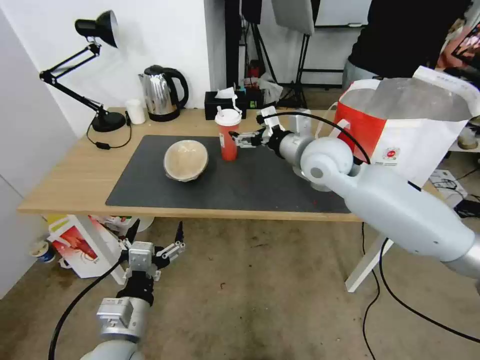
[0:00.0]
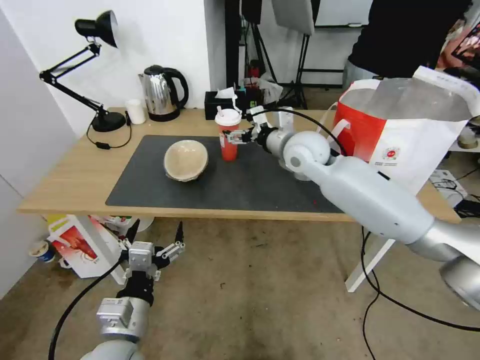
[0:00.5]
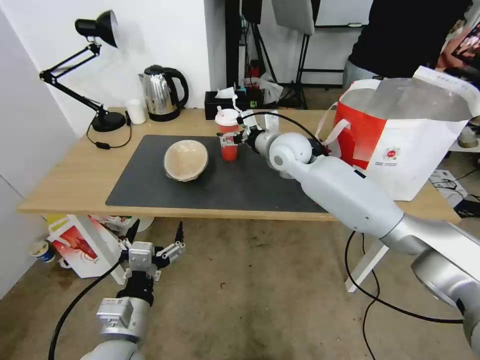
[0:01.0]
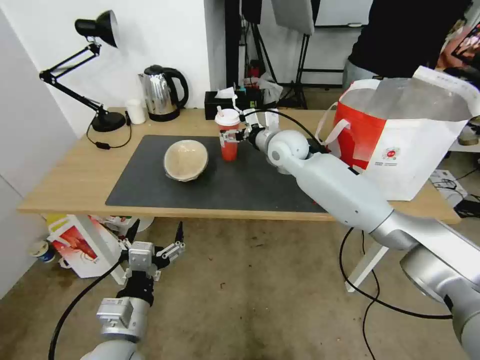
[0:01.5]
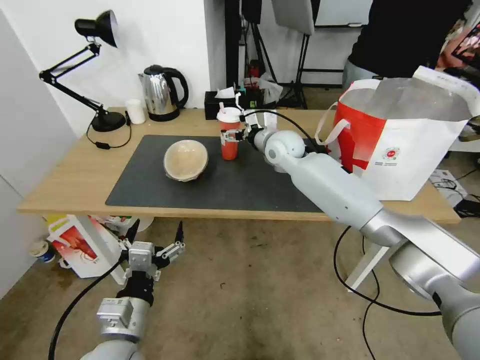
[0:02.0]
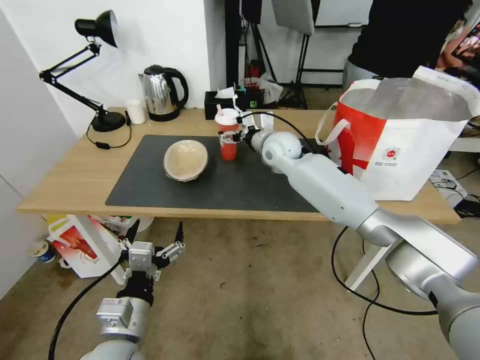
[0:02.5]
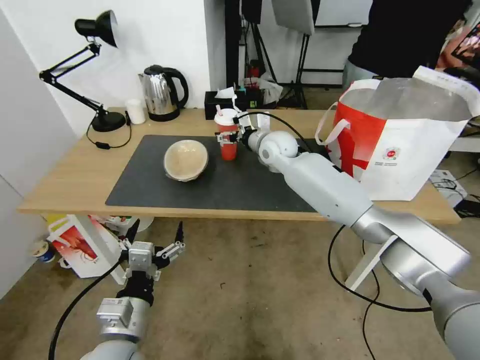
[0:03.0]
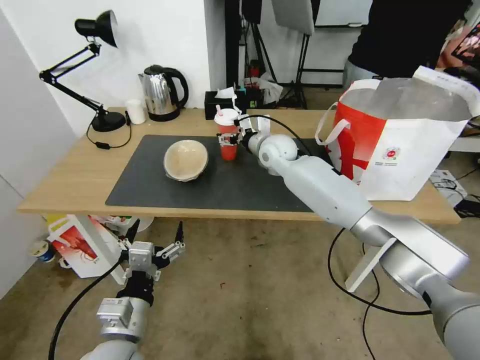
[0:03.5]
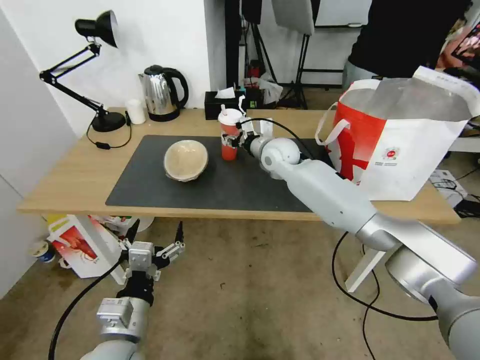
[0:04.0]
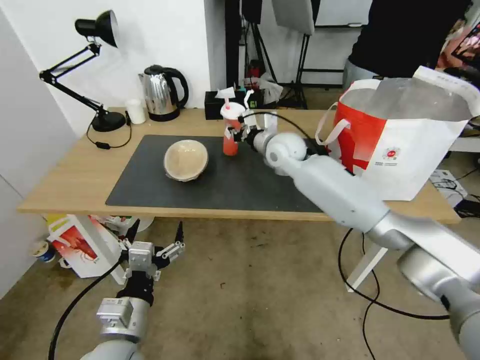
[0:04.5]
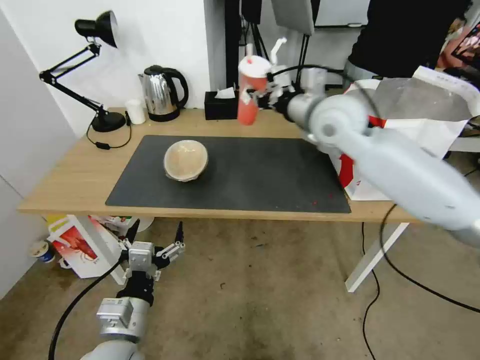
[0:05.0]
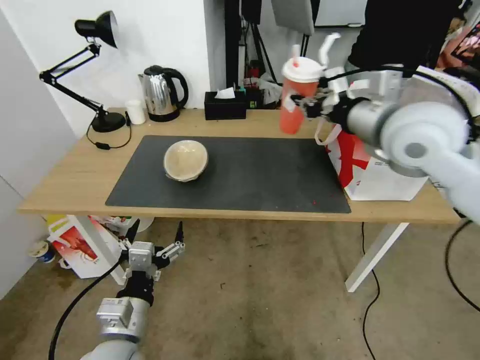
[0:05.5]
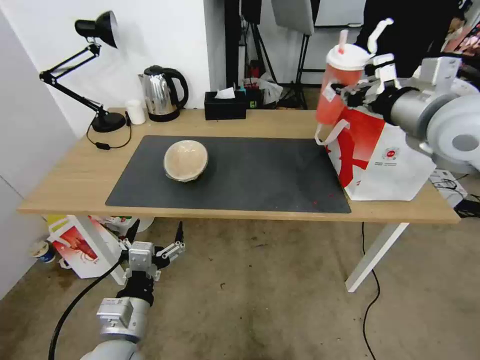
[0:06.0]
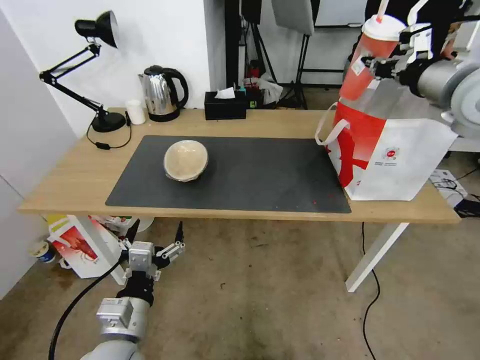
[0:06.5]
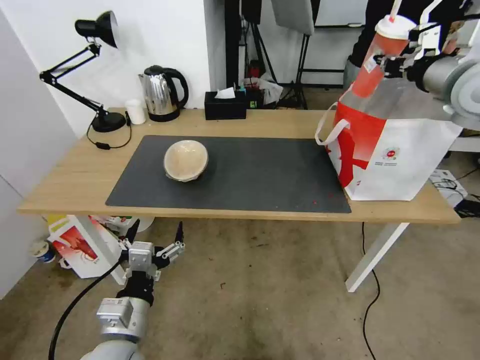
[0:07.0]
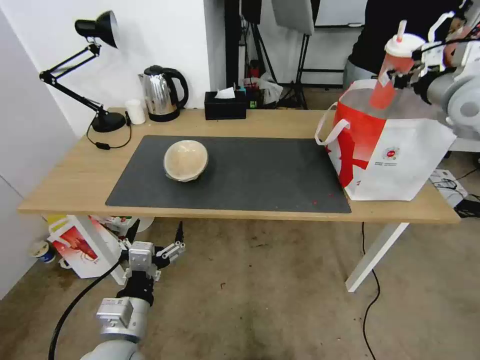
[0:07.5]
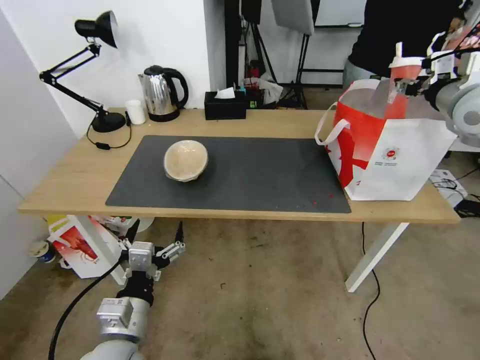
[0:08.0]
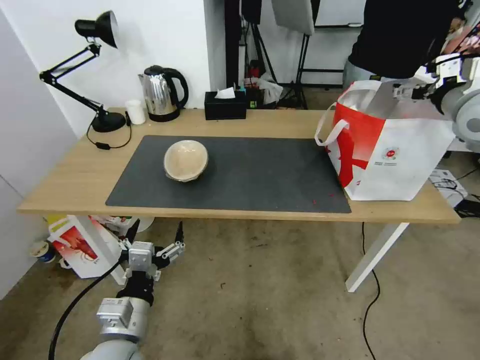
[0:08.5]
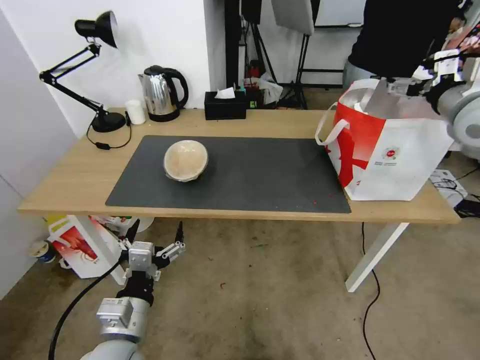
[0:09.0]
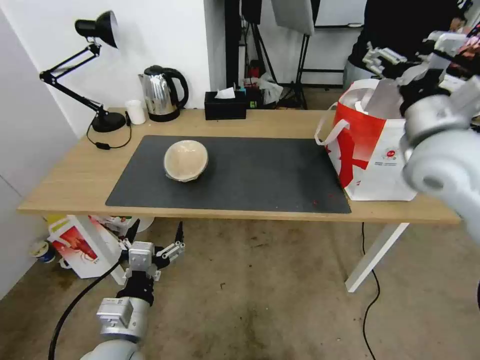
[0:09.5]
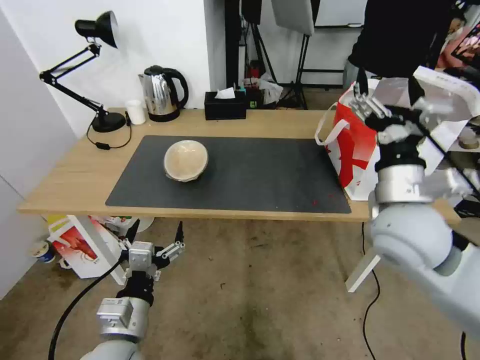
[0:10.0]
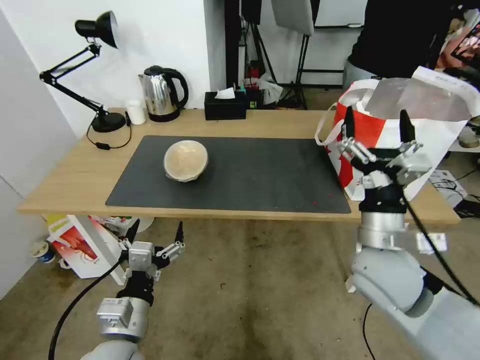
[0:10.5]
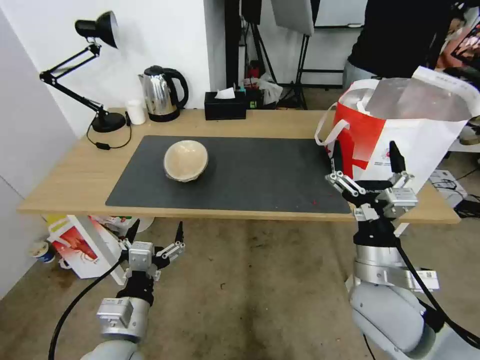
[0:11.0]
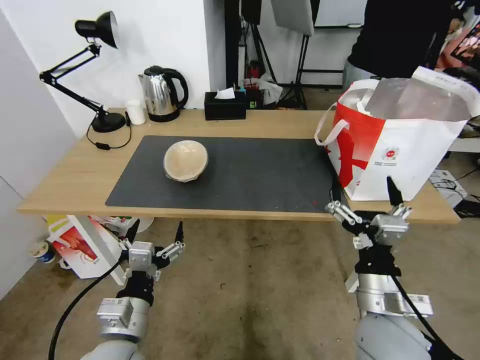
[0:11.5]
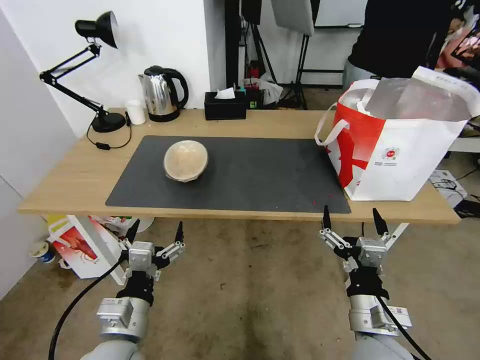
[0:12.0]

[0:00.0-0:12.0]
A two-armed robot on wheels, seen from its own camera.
Task of the whole recording: Pick up the trash from the table and place it into the takeout bag.
0:00.0 to 0:02.0: The right gripper is displaced forward, downward and to the left by approximately 15 cm.
0:02.0 to 0:04.0: The right gripper closes up.
0:04.0 to 0:06.0: The right gripper travels upward, to the right and backward by approximately 35 cm.
0:06.0 to 0:08.0: The right gripper is displaced to the right and forward by approximately 15 cm, and opens up.
0:08.0 to 0:10.0: The right gripper is displaced to the left, backward and downward by some 25 cm, and opens its fingers.
0:10.0 to 0:12.0: The right gripper goes some 20 cm downward and backward.

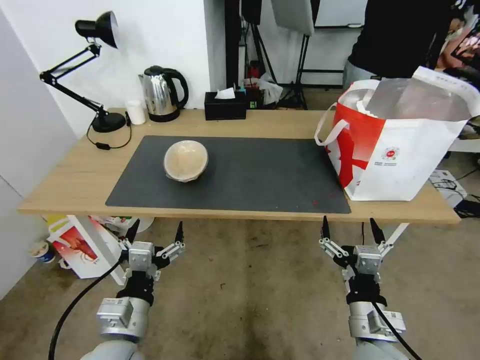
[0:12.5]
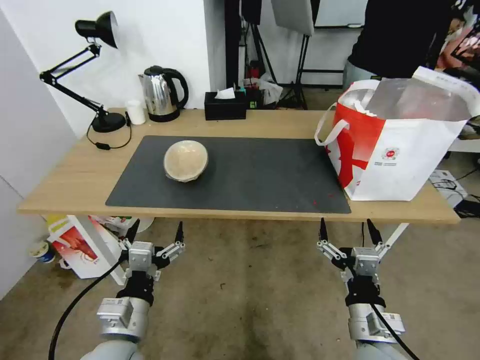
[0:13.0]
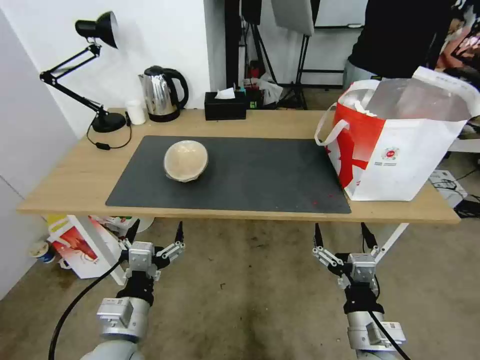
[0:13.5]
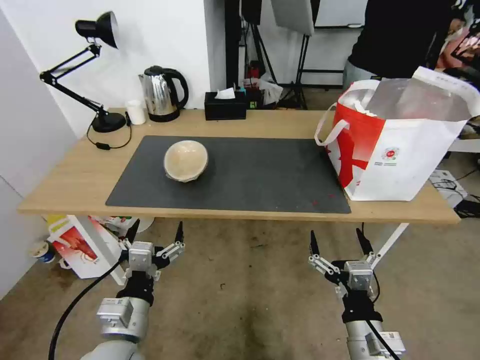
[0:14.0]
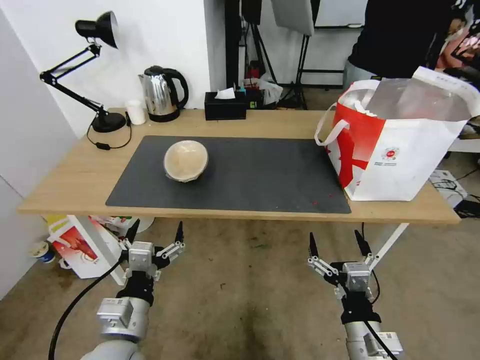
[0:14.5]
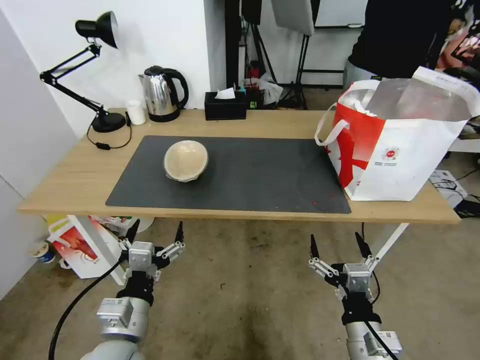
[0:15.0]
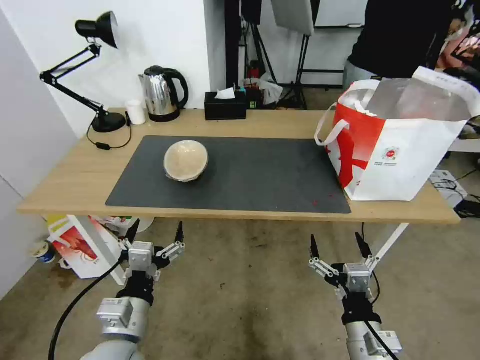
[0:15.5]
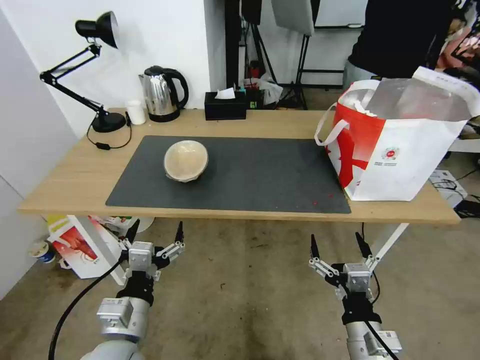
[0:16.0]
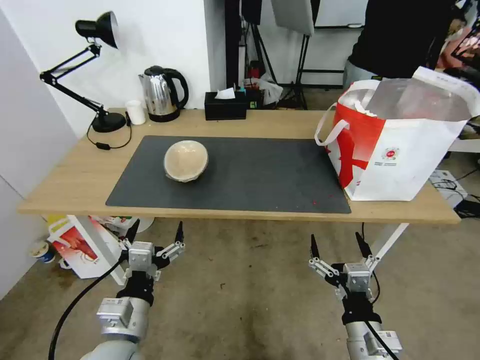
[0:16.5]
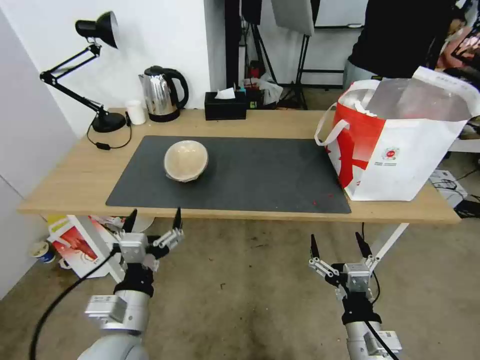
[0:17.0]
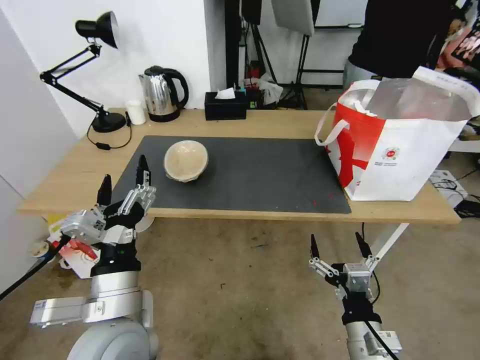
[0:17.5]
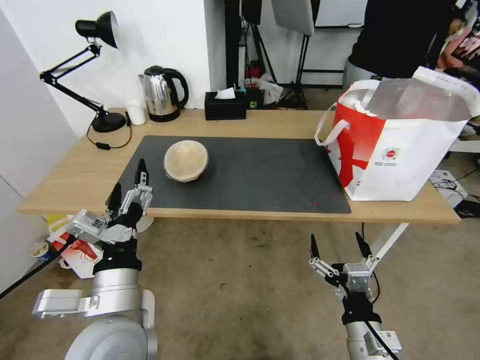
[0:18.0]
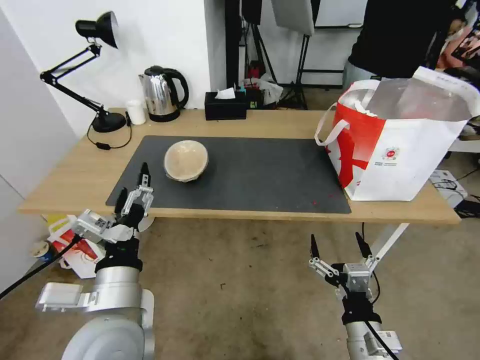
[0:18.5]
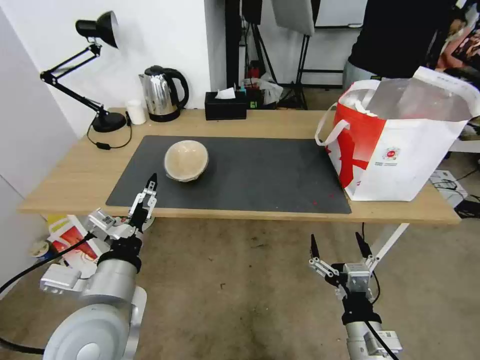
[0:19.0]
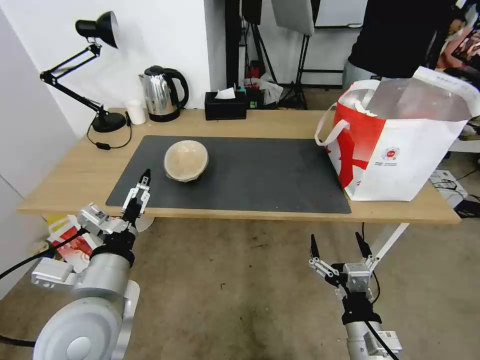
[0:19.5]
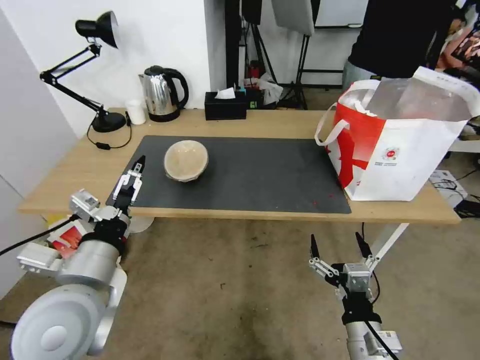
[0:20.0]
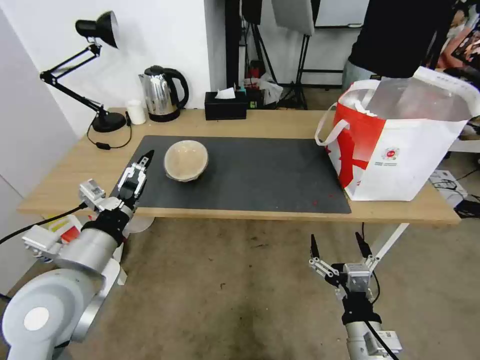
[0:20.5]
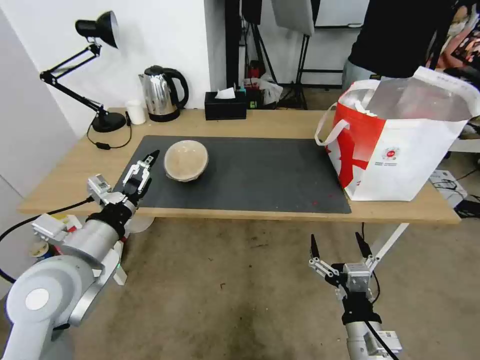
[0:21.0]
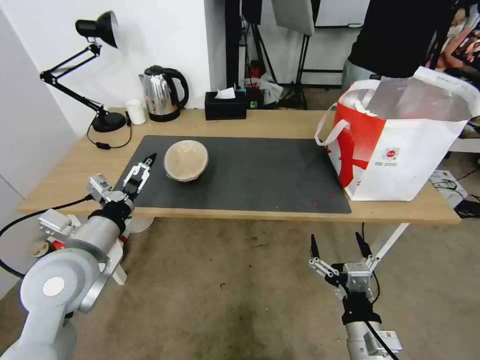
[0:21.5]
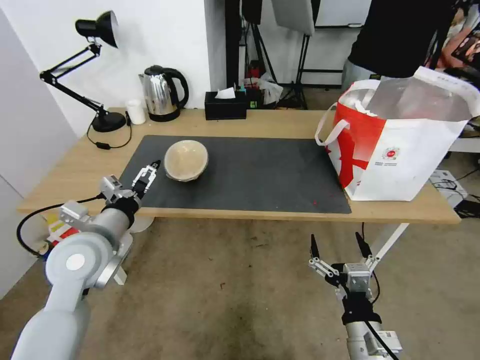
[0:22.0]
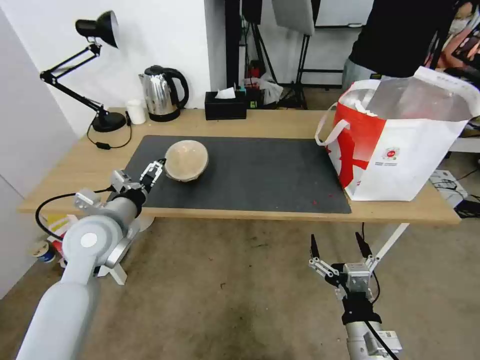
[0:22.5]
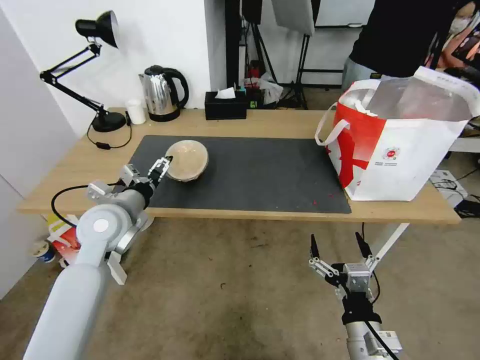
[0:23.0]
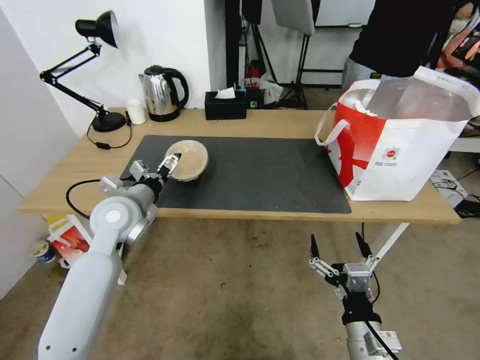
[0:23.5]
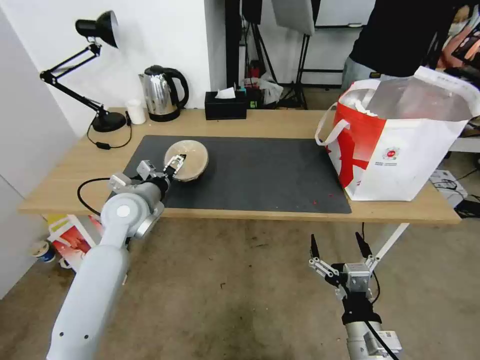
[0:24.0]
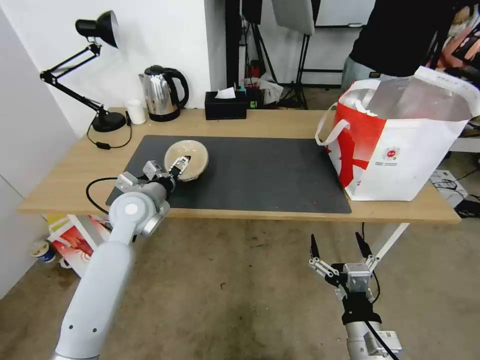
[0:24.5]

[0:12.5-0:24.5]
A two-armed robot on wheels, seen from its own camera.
Task of the whole recording: Pick up the trash from the table and place it into the takeout bag.
0:12.5 to 0:14.5: The grippers stay close to where they were, moving slightly.
0:14.5 to 0:16.5: Both grippers stay put.
0:16.5 to 0:18.5: The left gripper is displaced upward by some 10 cm.
0:18.5 to 0:20.5: The left gripper is displaced to the left by about 10 cm.
0:20.5 to 0:22.5: The left gripper heads forward, covering approximately 10 cm.
0:22.5 to 0:24.5: The left gripper moves forward, some 10 cm.

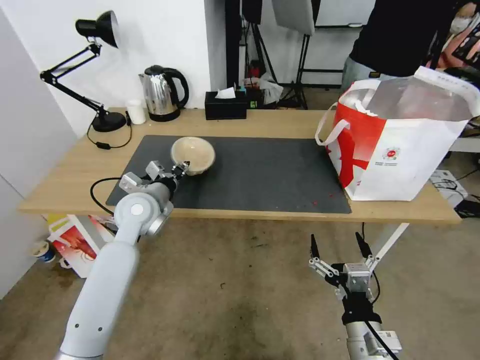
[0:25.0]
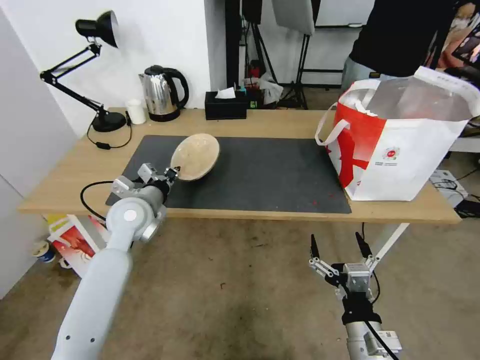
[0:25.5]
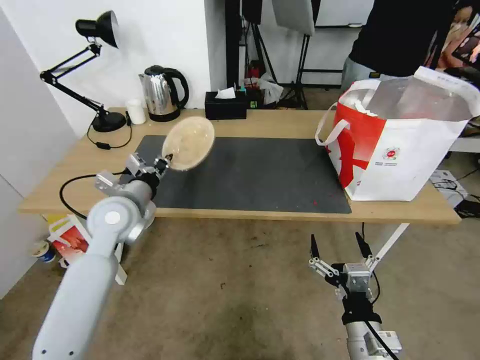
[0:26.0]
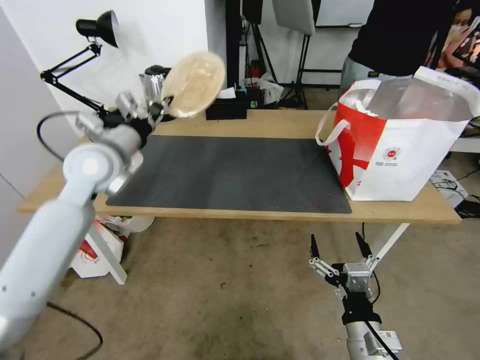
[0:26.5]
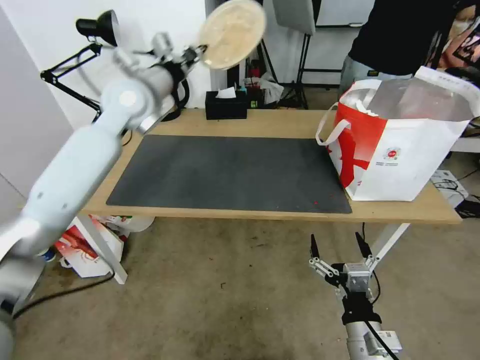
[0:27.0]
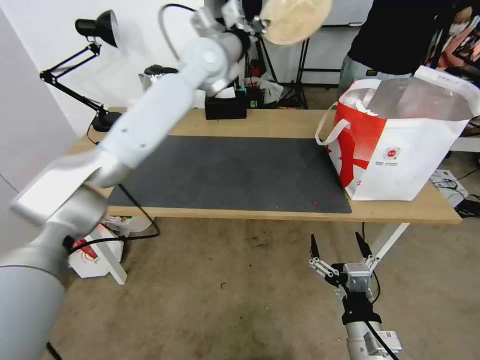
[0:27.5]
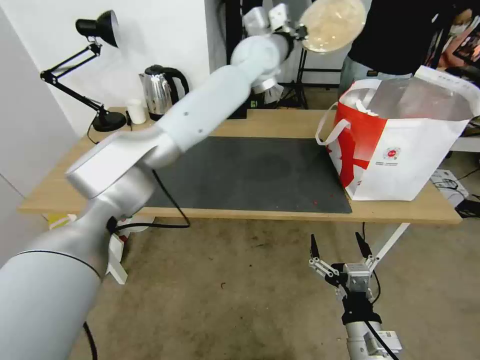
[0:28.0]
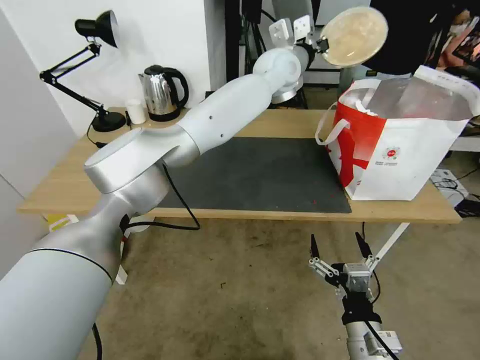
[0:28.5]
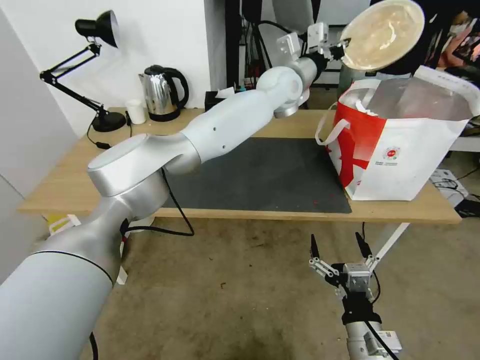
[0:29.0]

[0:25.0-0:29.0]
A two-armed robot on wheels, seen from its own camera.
Task of the whole recording: Pick up the trash from the table and place it into the takeout bag.
0:25.0 to 0:27.0: The left gripper moves upward and forward, some 25 cm.
0:27.0 to 0:29.0: The left gripper goes roughly 30 cm to the right.
